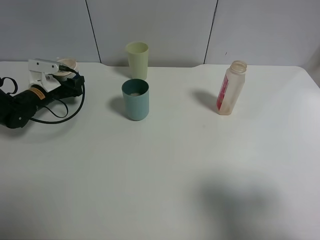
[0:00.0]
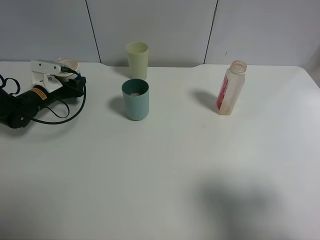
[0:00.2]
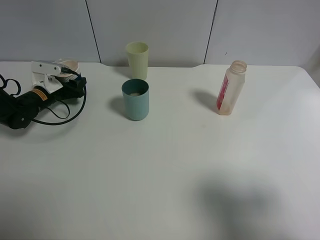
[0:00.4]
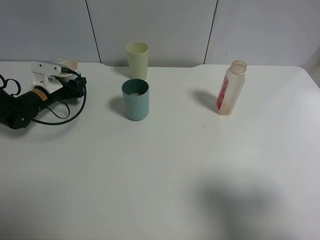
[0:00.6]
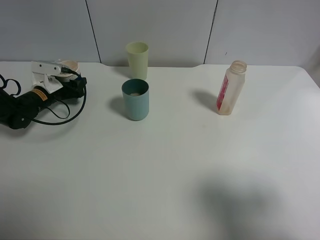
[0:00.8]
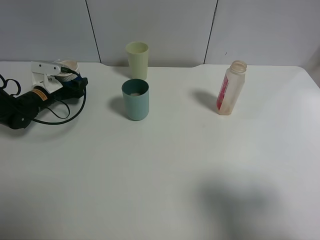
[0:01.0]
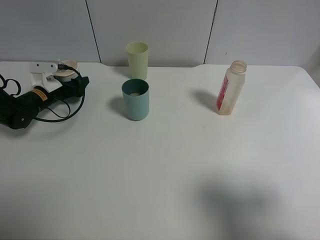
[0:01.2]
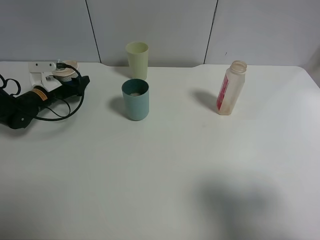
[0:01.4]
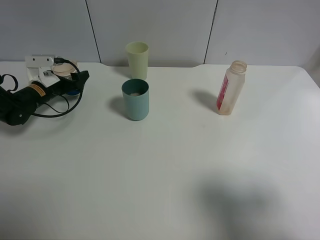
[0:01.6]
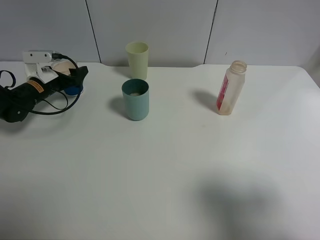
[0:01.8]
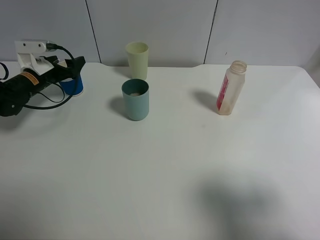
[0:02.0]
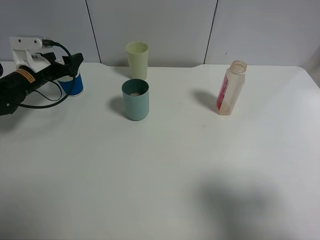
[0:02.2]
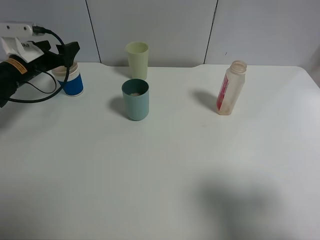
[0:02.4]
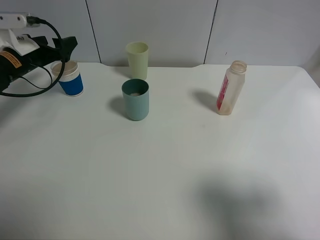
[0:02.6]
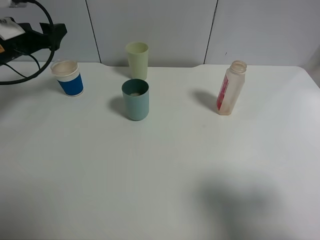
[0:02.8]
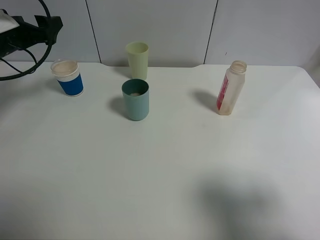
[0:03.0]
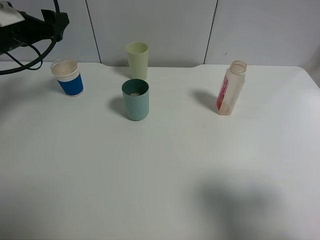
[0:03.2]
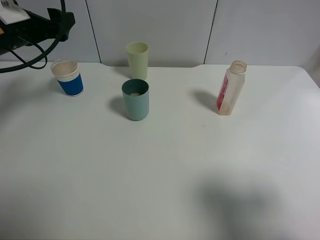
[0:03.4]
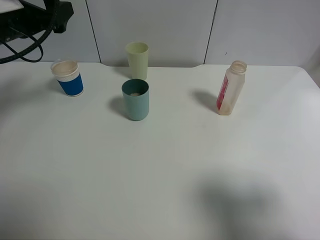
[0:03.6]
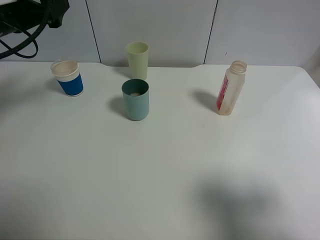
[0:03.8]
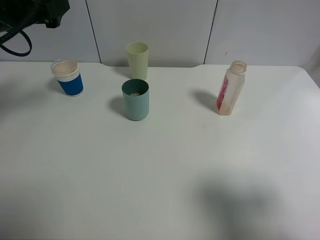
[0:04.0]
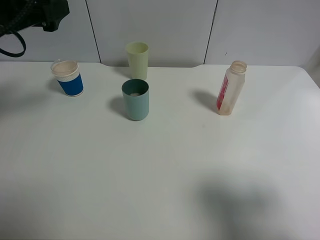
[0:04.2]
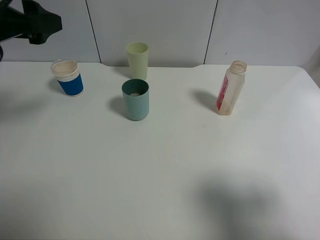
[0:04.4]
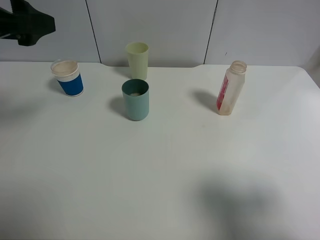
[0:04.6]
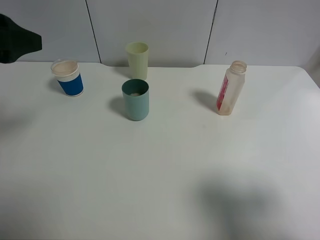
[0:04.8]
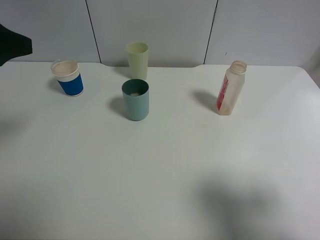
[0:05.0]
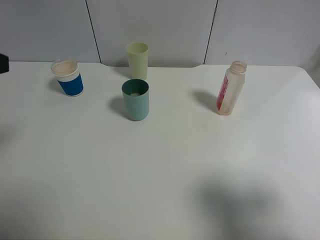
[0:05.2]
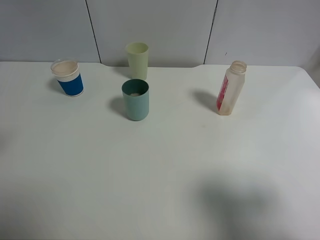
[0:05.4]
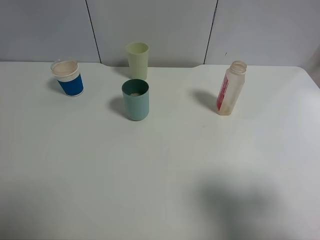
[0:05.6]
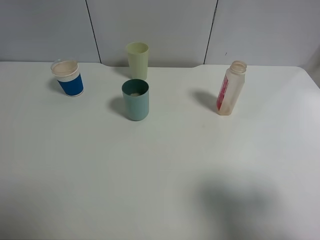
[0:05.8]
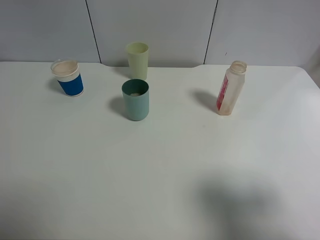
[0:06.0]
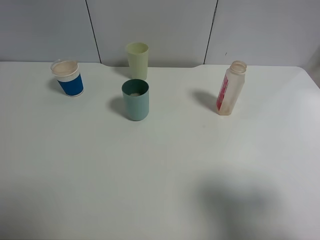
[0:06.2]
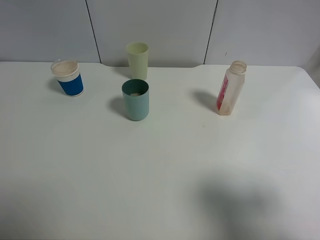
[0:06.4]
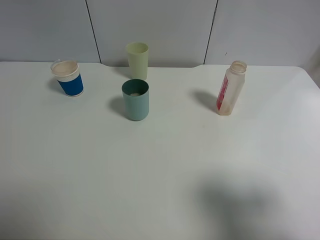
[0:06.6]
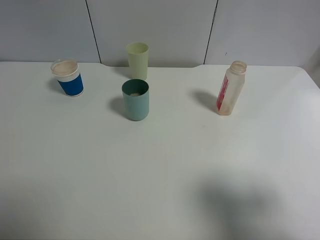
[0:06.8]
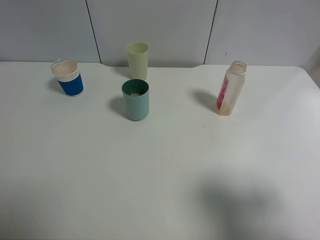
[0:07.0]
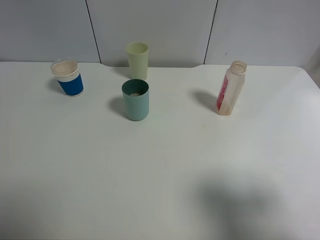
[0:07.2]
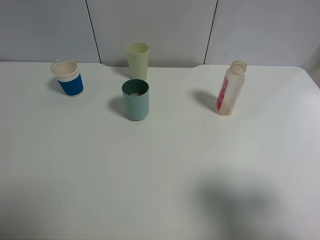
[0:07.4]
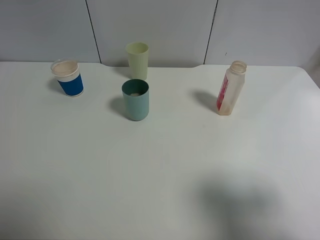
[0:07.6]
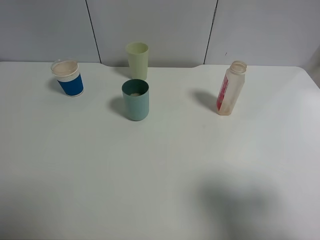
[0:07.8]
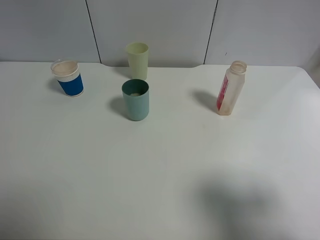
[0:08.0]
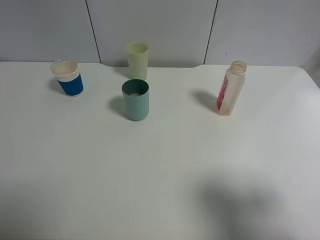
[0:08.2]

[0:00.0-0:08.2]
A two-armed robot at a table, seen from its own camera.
Task of the whole recording: use a clamp to hold the bottle of the drink, pour the beverage into a random cup, then clamp the cup containing the drink and pour the drink into another random cup.
0:00.0 to 0:01.6: The left gripper opens up.
0:01.6 to 0:03.2: The left gripper is displaced upward by approximately 20 cm.
0:03.2 to 0:05.0: The left gripper is displaced backward and upward by approximately 15 cm.
0:05.0 to 0:06.6: The left gripper heads backward, covering roughly 15 cm.
